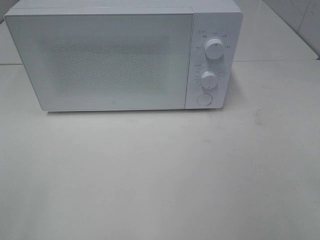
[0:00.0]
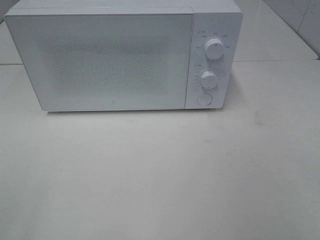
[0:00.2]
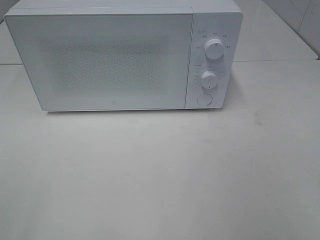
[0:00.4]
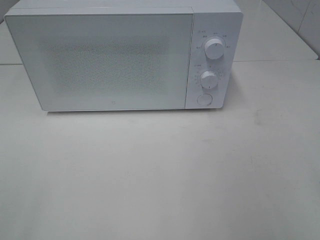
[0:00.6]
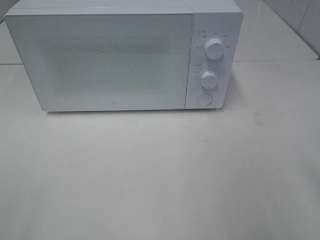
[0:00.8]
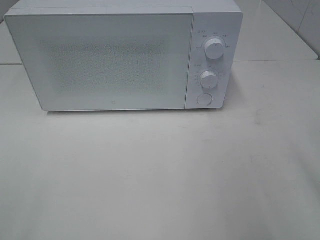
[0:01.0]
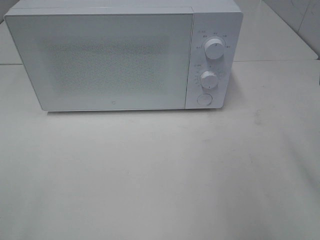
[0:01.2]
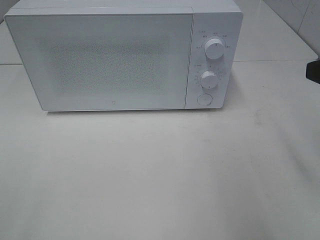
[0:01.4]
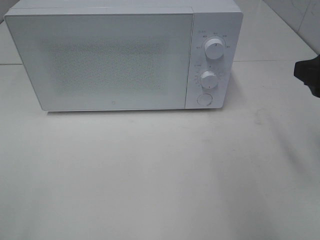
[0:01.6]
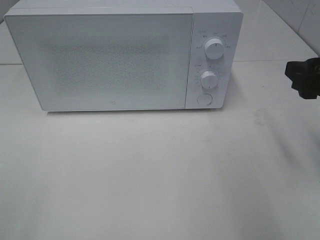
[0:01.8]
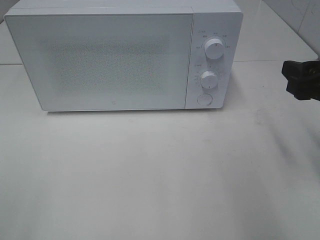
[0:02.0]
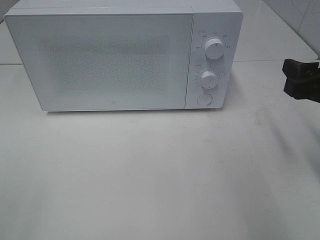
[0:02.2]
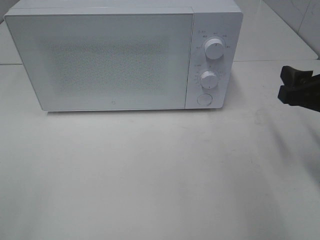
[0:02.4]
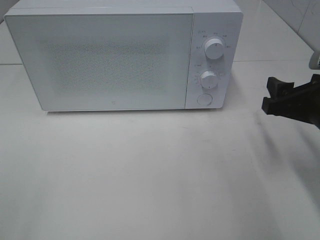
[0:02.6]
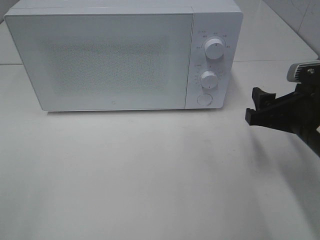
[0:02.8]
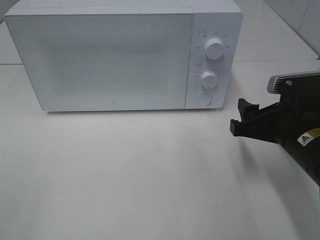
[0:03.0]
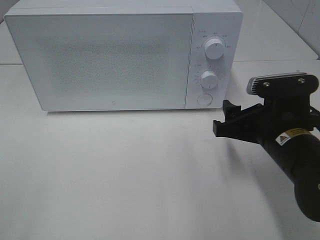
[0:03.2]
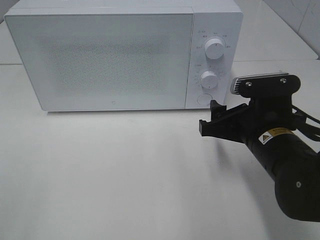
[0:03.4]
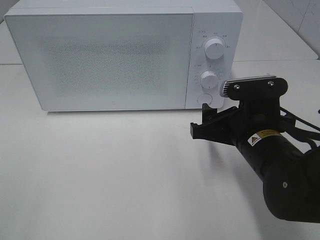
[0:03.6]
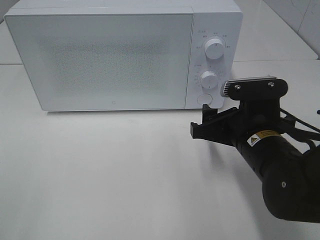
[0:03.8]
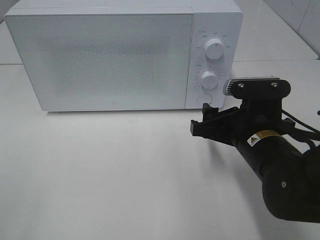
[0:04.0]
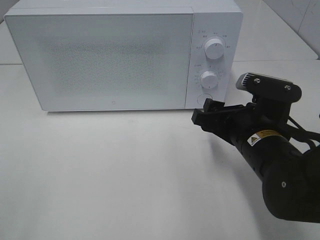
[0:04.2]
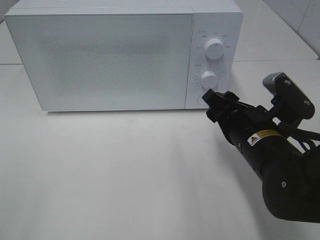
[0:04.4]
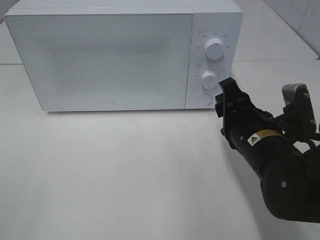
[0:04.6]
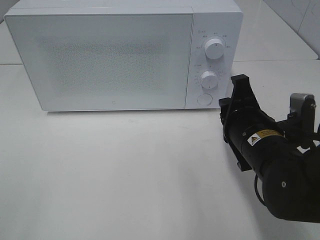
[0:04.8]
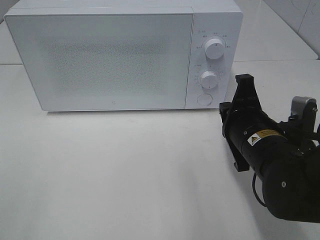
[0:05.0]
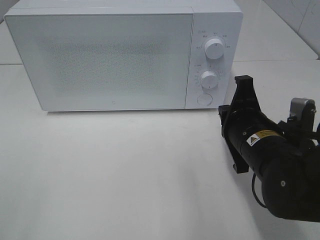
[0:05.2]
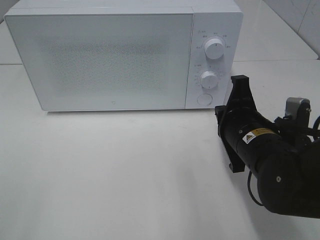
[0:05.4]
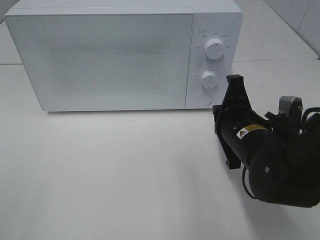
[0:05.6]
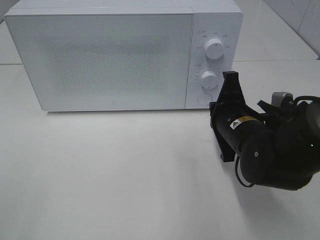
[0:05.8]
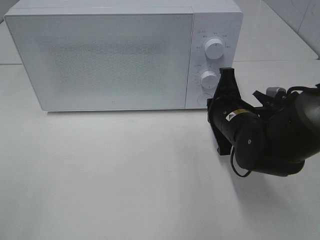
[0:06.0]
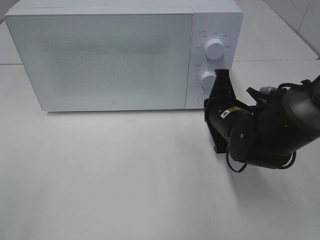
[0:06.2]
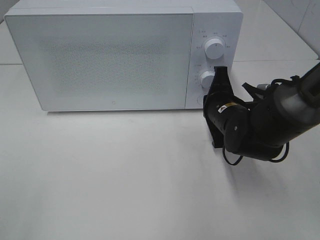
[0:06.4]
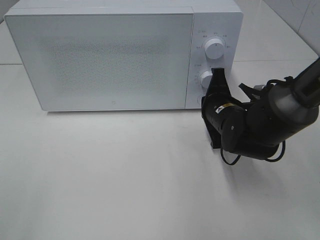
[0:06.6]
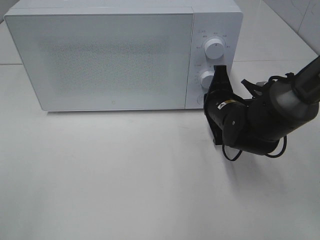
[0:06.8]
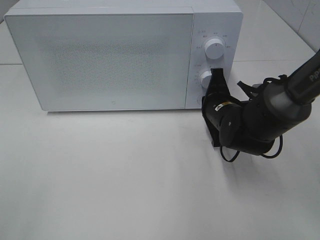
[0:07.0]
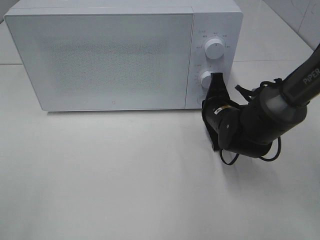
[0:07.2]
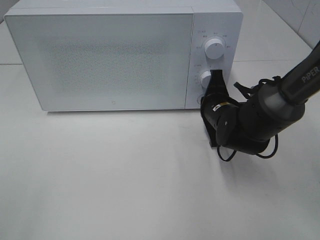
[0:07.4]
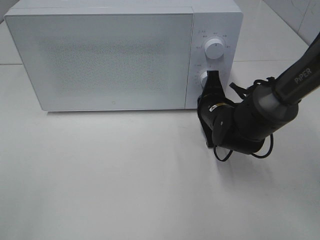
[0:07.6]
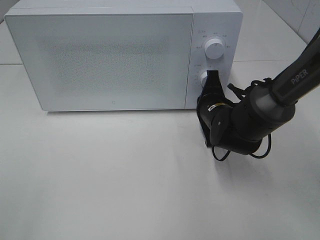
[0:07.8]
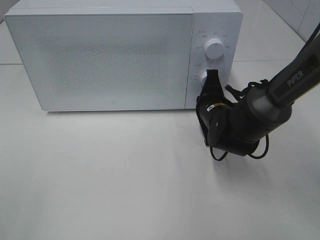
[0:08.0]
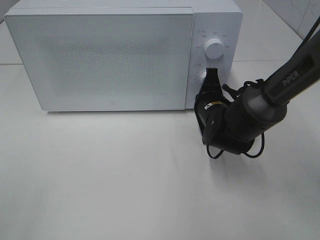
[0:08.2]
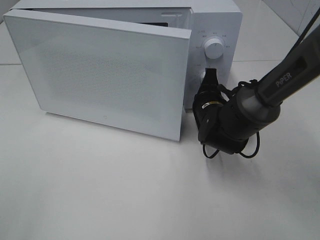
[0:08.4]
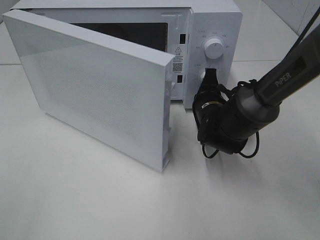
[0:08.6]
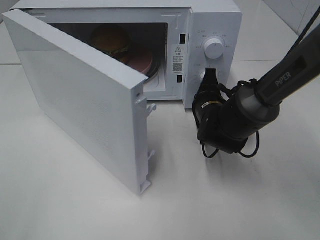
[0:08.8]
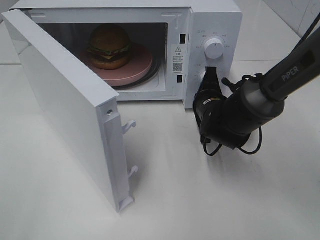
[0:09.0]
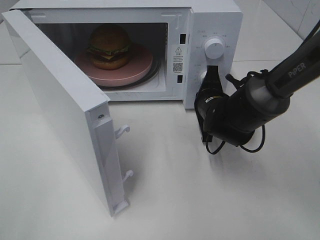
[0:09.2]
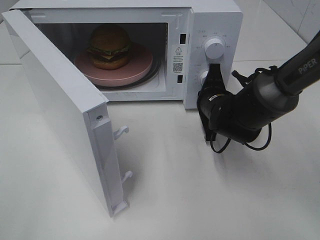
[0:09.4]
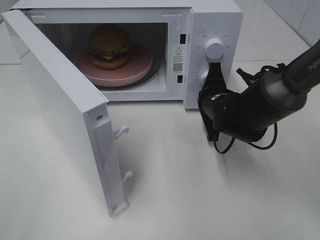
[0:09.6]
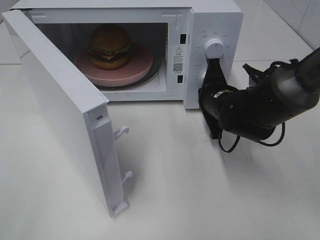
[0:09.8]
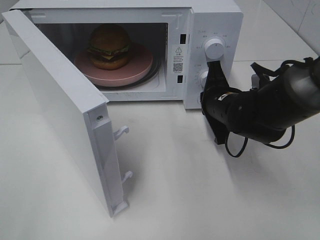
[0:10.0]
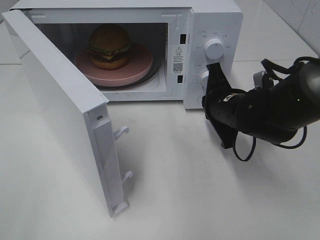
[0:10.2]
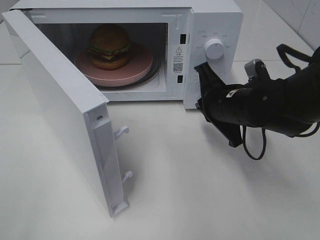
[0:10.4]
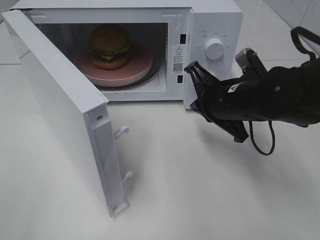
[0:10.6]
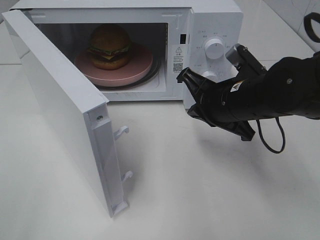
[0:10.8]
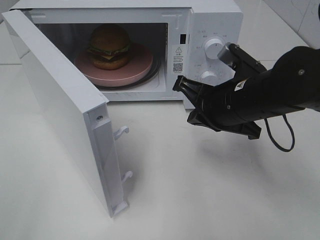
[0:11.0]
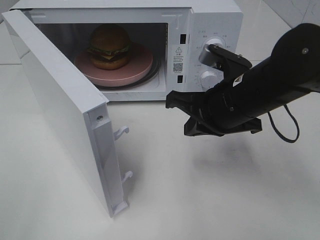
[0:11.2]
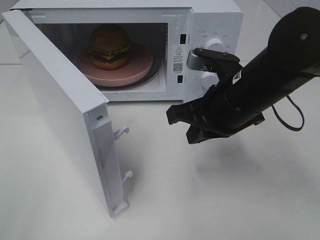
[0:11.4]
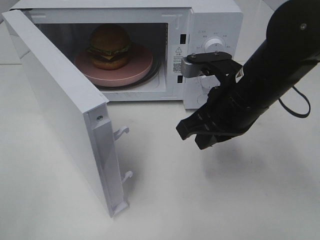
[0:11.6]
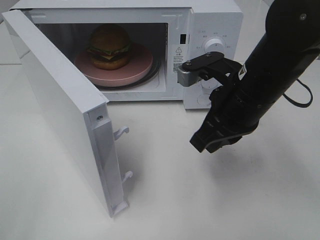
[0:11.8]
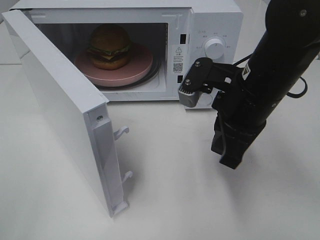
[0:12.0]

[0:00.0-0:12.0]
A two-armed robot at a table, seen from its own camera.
Task of the whole recording: Heat the burger.
Step, 0:00.0 to 0:09.8: Right hand: press the switch.
0:00.0 to 0:01.6: The right gripper heads forward, covering some 20 cm.
0:01.6 to 0:03.0: The right gripper heads downward and to the left, covering roughly 10 cm.
0:03.0 to 0:04.4: The right gripper travels to the left by about 5 cm.
0:04.4 to 0:06.0: The right gripper travels forward by about 5 cm, and closes.
0:06.0 to 0:07.6: The right gripper goes about 5 cm forward.
0:09.0 to 0:10.4: The right gripper heads backward and upward, covering roughly 10 cm.
0:10.4 to 0:12.0: The right gripper moves upward, approximately 5 cm.

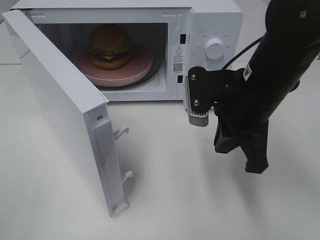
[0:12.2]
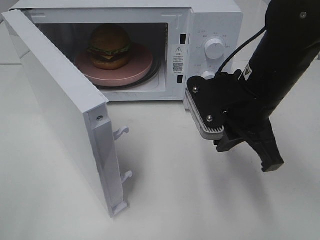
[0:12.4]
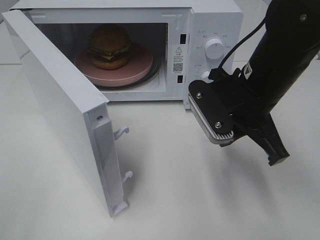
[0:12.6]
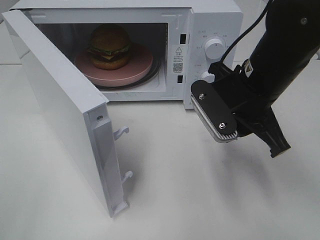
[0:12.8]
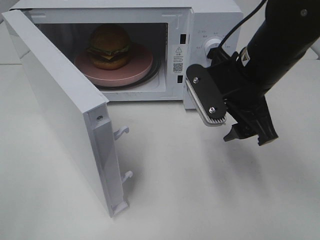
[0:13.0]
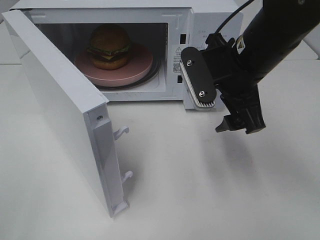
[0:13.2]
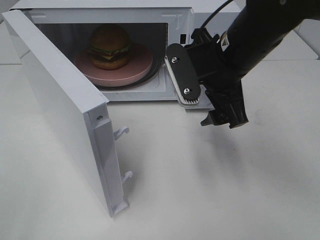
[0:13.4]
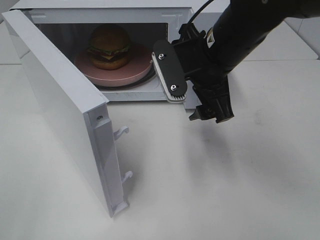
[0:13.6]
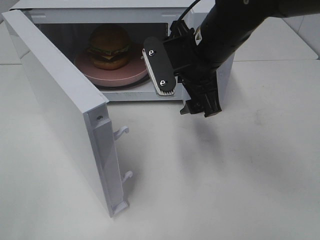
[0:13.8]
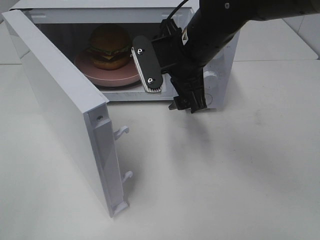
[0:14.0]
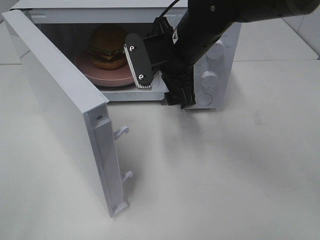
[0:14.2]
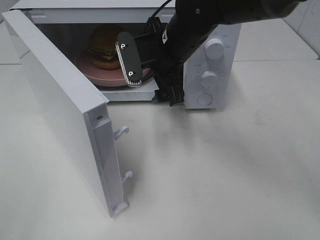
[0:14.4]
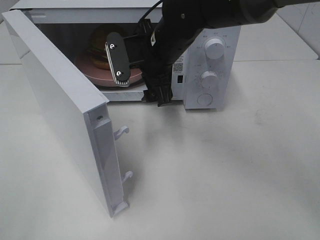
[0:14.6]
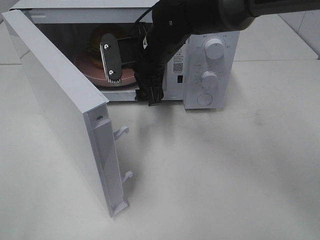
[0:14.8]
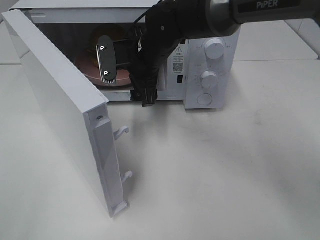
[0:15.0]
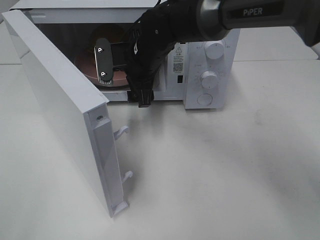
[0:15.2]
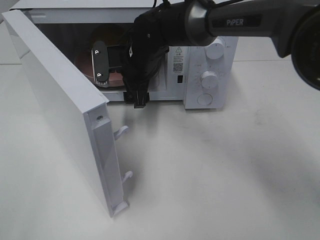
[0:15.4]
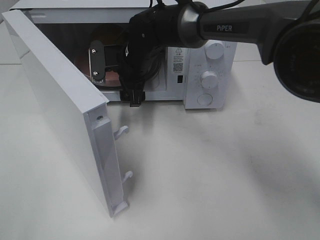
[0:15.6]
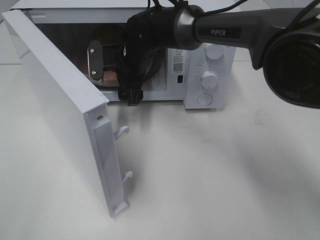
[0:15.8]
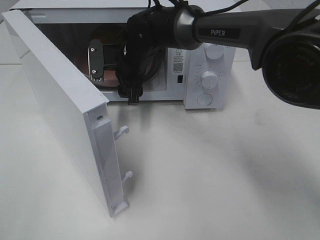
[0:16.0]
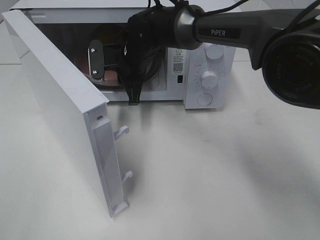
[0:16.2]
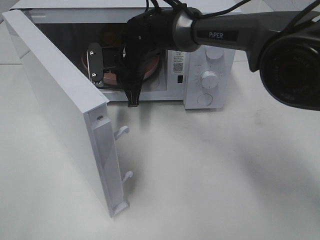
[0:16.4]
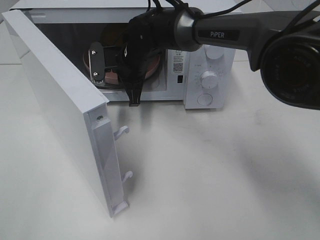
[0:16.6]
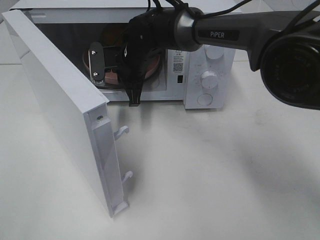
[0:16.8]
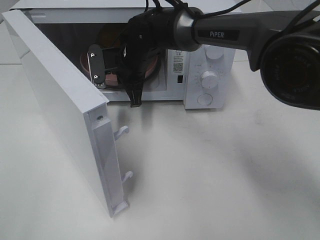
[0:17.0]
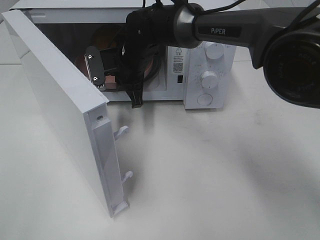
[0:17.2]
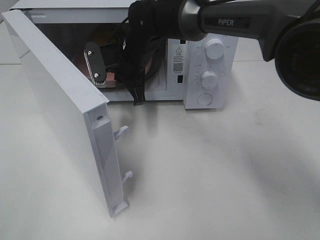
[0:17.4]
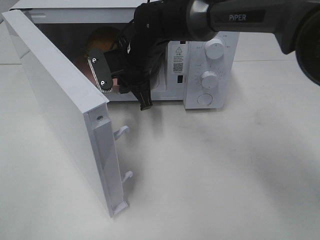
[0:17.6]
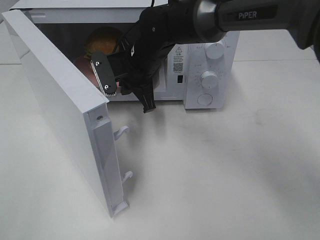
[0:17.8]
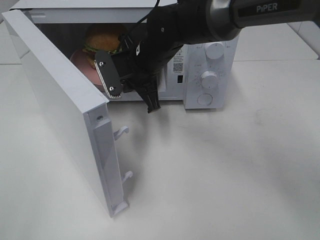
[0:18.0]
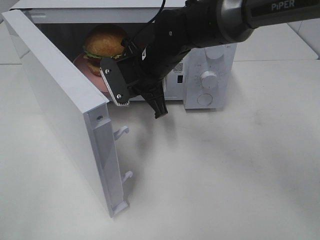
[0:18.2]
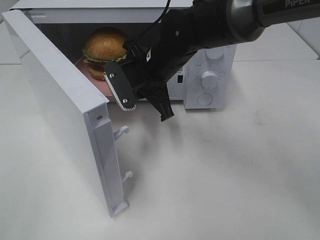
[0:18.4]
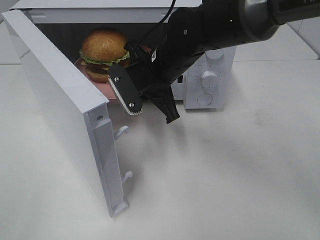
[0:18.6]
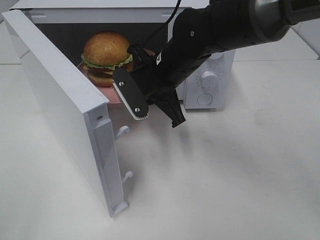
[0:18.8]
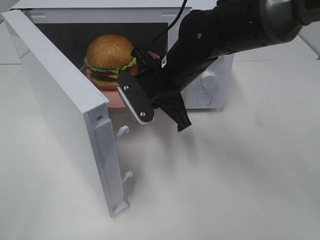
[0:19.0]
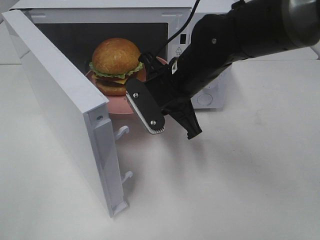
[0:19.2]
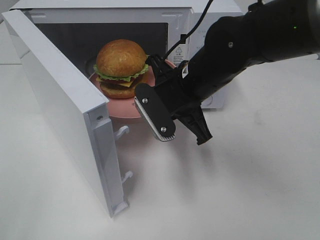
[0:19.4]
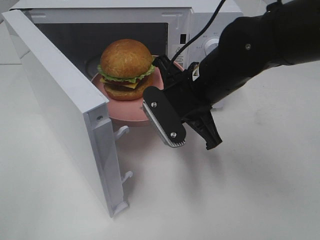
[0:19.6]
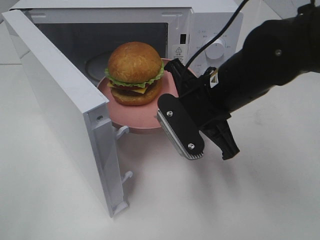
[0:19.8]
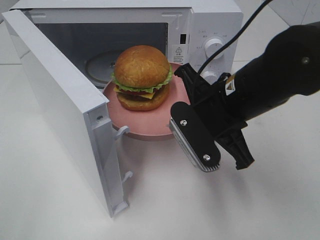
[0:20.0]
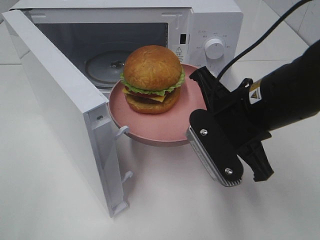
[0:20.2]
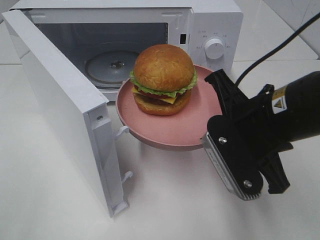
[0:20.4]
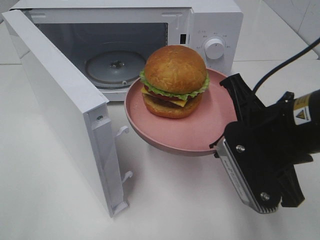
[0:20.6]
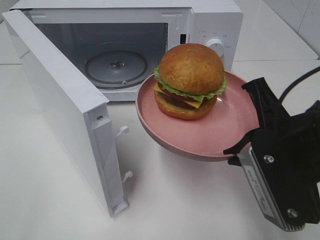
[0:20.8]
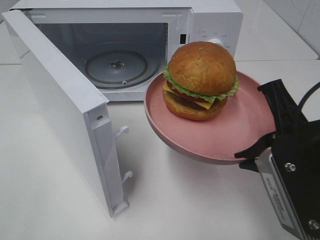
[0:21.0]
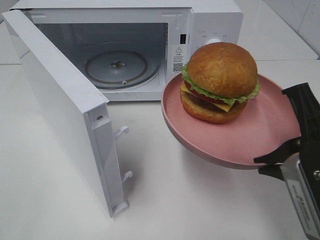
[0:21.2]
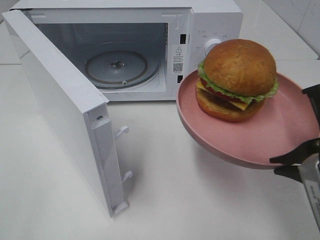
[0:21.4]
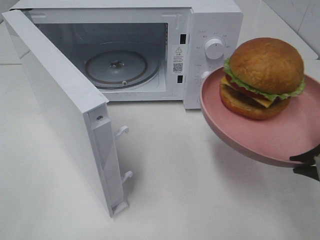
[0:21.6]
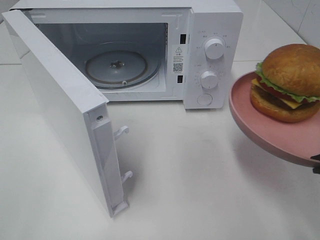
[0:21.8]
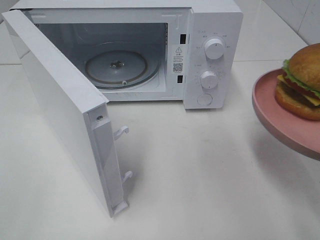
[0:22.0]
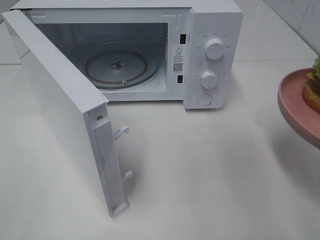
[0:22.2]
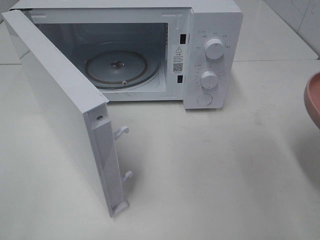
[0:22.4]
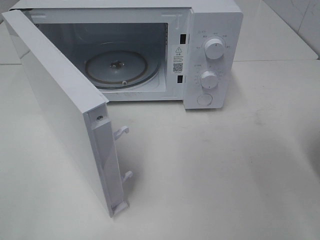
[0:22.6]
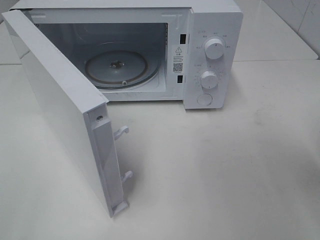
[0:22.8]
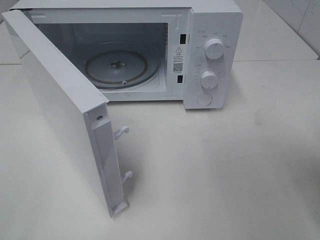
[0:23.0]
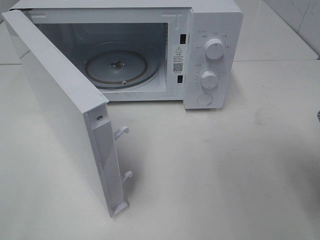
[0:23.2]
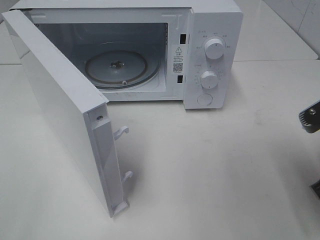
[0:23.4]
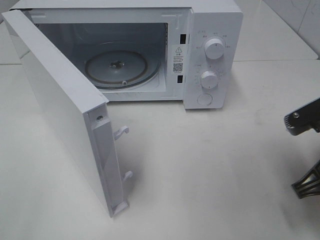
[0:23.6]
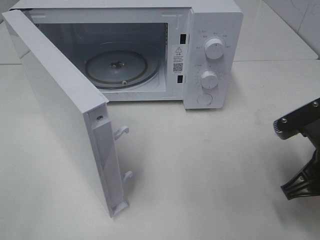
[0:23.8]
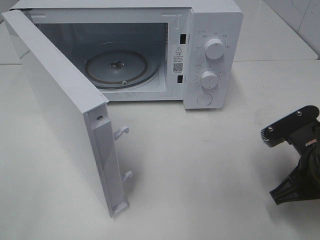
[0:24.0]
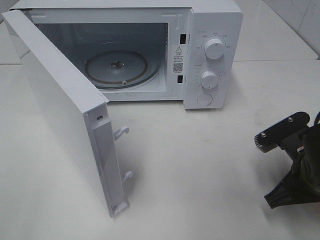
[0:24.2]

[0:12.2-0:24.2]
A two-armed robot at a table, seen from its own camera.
Task of the whole recording: Heat the burger.
Step, 0:12.2 to 0:16.4: Right hand: grab the plate with the hamburger.
0:12.2 to 0:13.8: The right gripper heads forward and to the left, covering roughly 10 cm, and opens its fingers.
0:13.8 to 0:15.2: The right gripper is displaced forward, to the left and downward by about 15 cm.
0:15.2 to 0:16.6: The right gripper closes up.
0:16.6 to 0:18.2: The right gripper shifts approximately 5 cm backward.
0:18.2 to 0:19.8: The right gripper goes about 15 cm backward and to the right.
0:19.8 to 0:21.2: The right gripper heads backward and to the right, covering roughly 15 cm.
0:21.2 to 0:22.6: The right gripper travels to the right by approximately 5 cm.
0:22.6 to 0:24.2: The right gripper shifts about 15 cm downward and forward.
